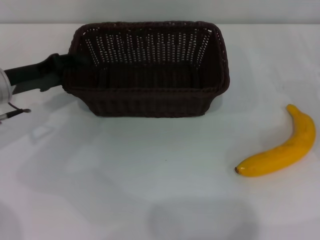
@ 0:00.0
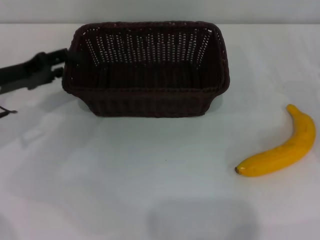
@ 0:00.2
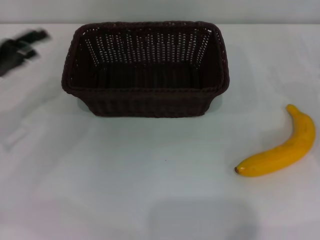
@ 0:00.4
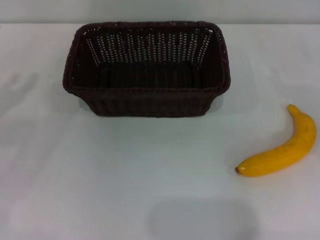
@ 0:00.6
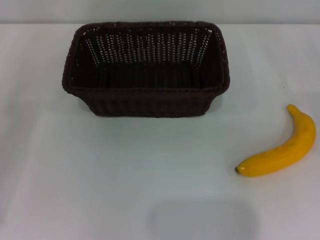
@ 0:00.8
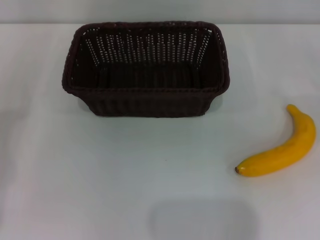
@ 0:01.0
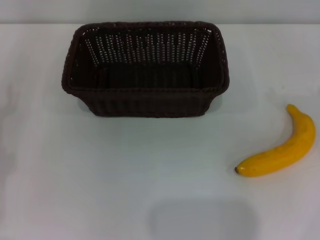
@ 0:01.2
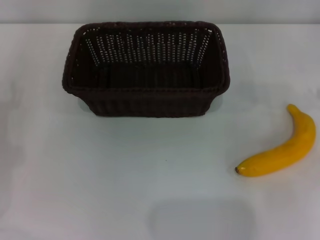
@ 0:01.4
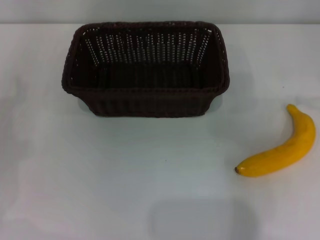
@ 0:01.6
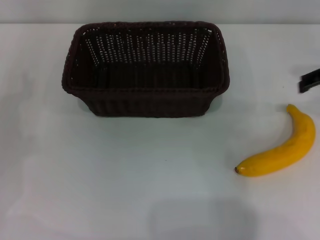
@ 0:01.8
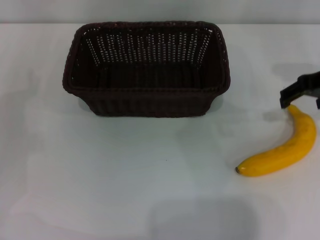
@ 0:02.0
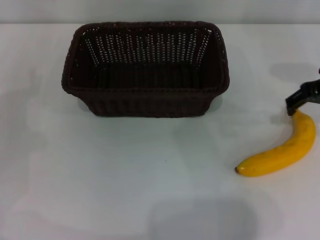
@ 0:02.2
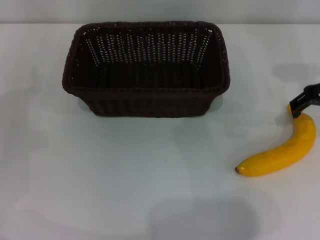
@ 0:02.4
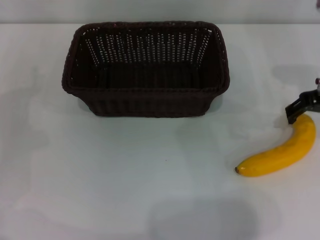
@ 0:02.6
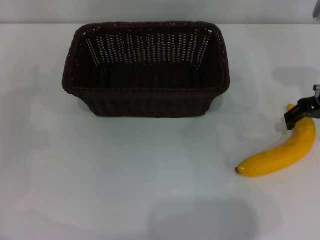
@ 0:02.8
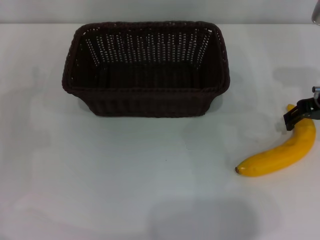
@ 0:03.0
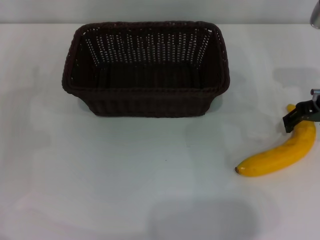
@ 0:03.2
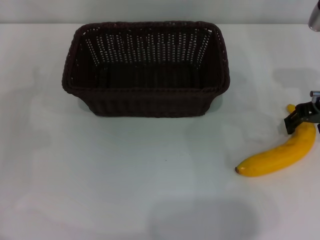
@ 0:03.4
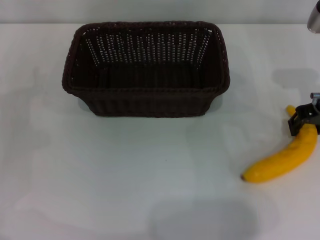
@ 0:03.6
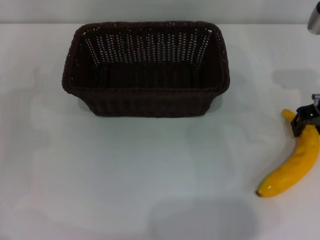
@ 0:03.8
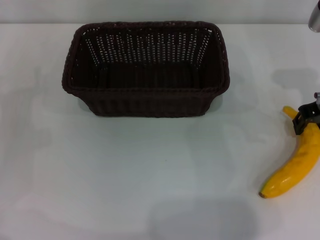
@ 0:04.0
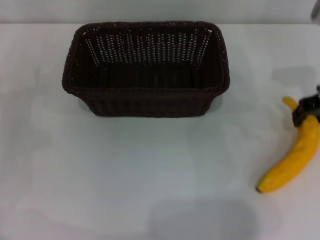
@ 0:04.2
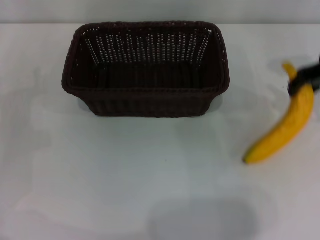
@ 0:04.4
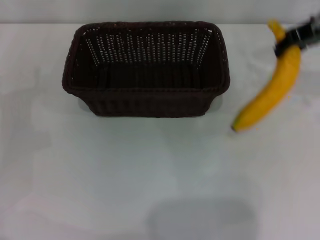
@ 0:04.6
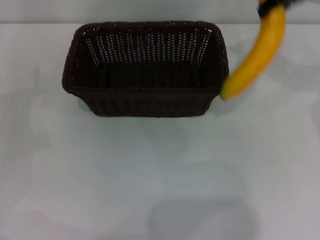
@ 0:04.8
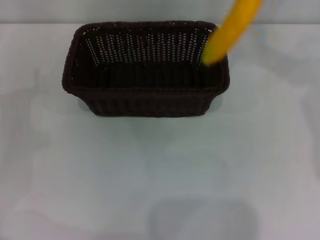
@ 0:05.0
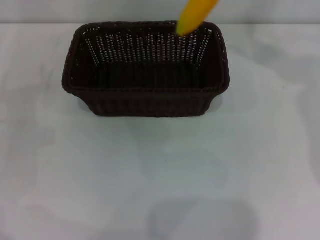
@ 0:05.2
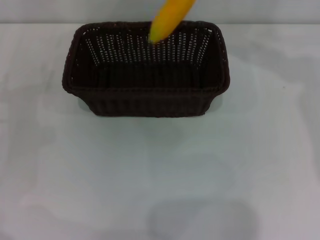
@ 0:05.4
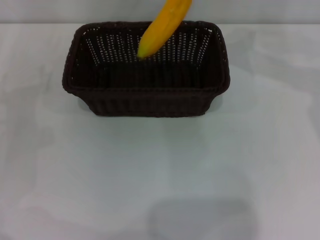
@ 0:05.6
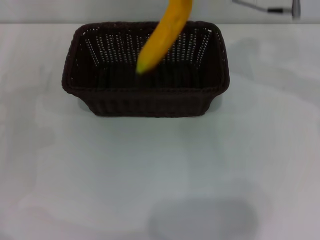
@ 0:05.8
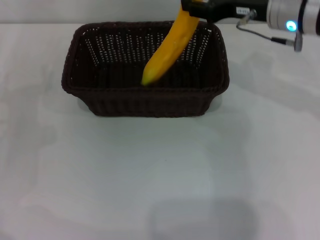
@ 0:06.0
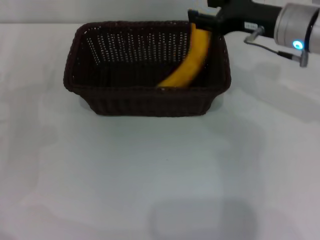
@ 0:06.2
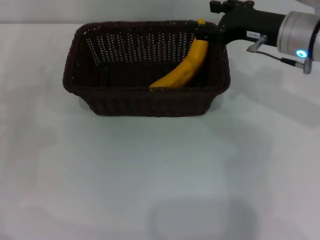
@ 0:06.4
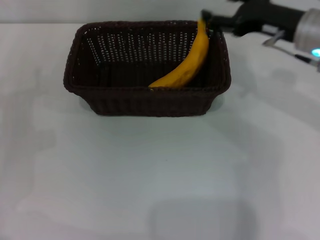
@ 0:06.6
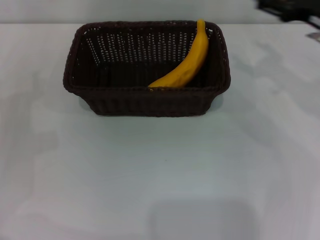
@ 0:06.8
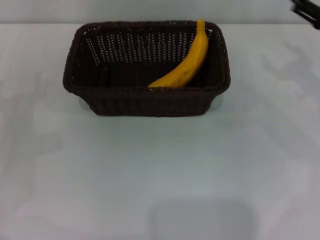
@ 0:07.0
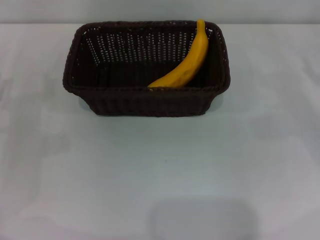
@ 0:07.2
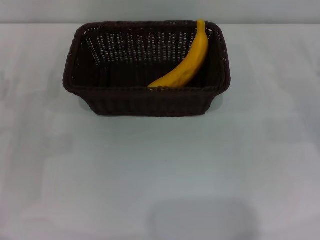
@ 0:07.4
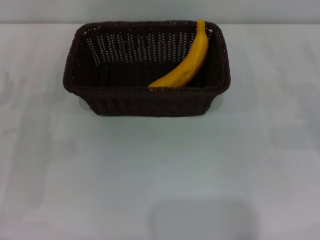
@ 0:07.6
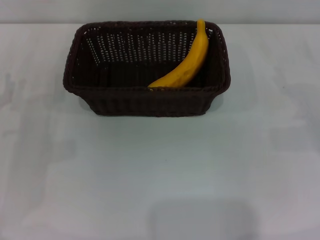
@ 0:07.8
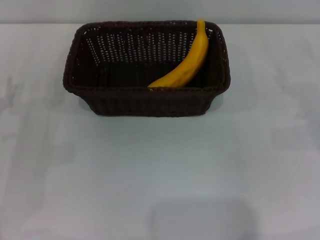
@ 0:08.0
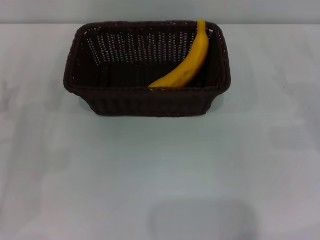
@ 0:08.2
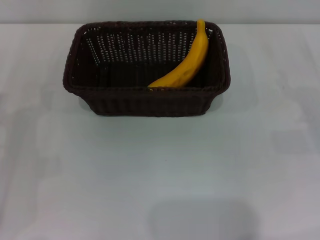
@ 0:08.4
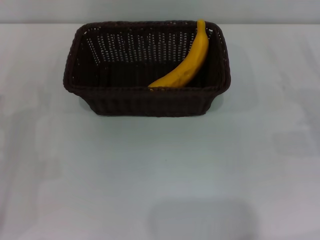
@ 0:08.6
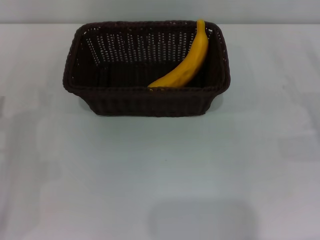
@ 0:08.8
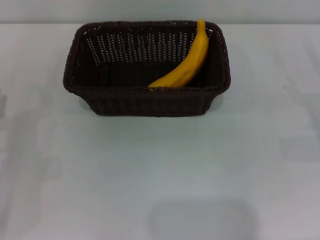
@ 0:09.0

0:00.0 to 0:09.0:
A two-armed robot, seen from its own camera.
Step, 0:00.6 to 0:04.2: Pick up the banana with the right gripper.
Step, 0:04.6 to 0:06.6: Place the banana into the dark basket with the right gripper.
0:00.0 to 0:01.6: The left gripper goes about 10 cm to the left and backward, and opens its fingers.
0:01.6 to 0:03.0: The right gripper shifts approximately 10 cm to the left and downward.
0:03.0 to 0:04.4: The right gripper closes.
0:04.4 to 0:06.0: The right gripper heads to the left, covering about 5 cm, and moves about 15 cm upward and comes back.
0:06.0 to 0:07.6: The right gripper heads to the right, downward and backward, covering some 25 cm, and opens.
